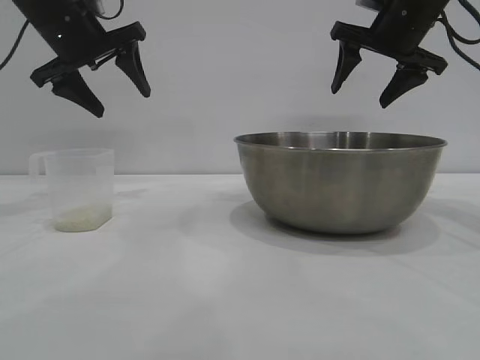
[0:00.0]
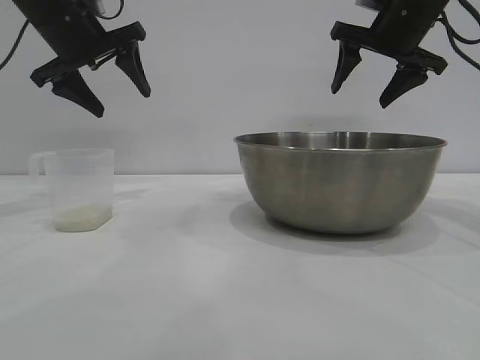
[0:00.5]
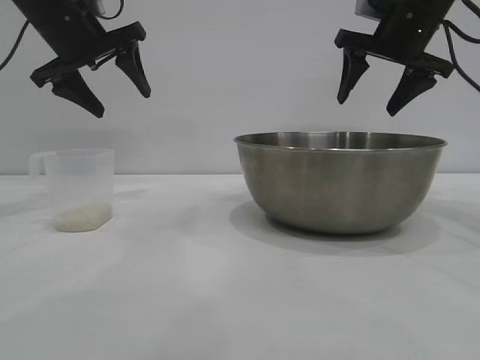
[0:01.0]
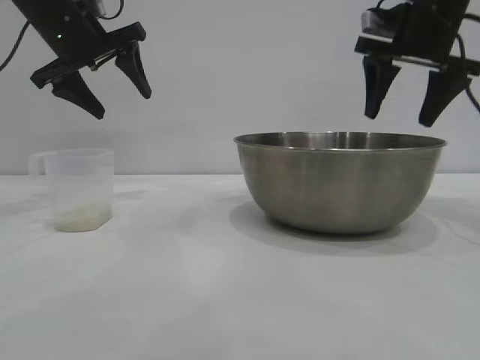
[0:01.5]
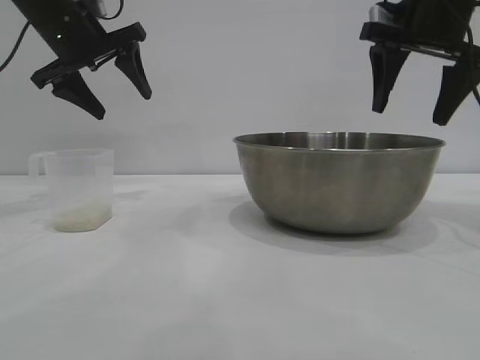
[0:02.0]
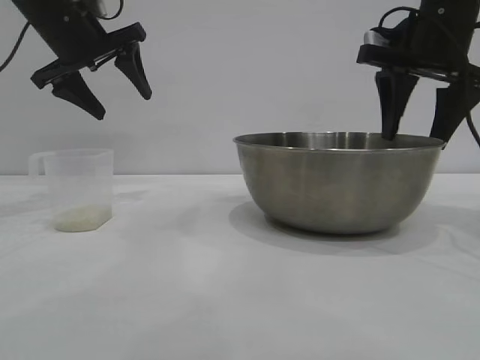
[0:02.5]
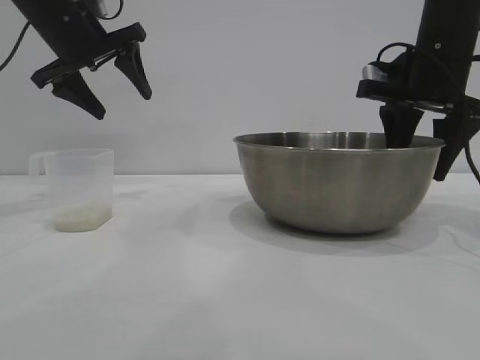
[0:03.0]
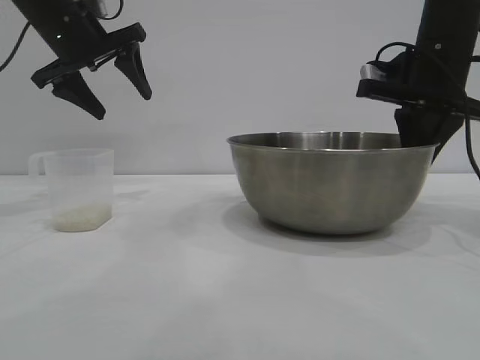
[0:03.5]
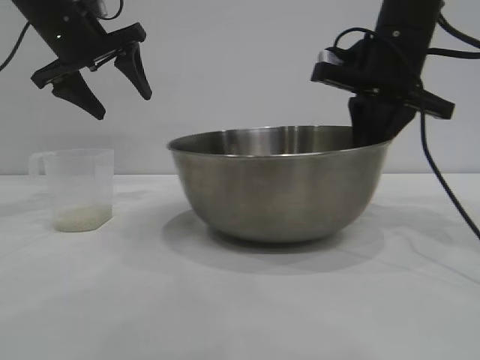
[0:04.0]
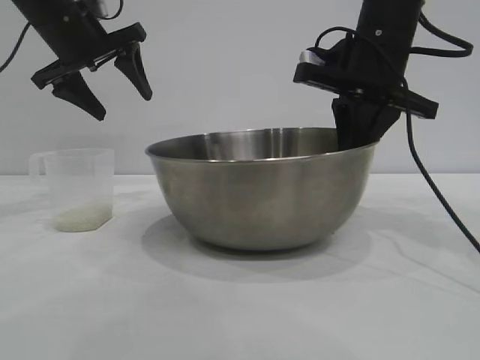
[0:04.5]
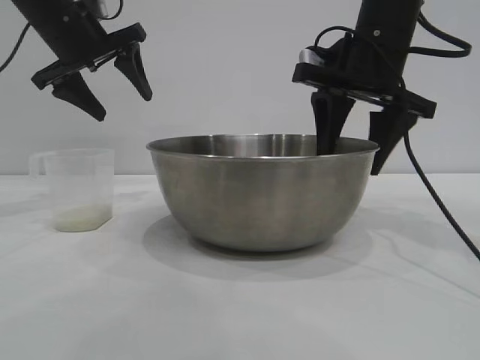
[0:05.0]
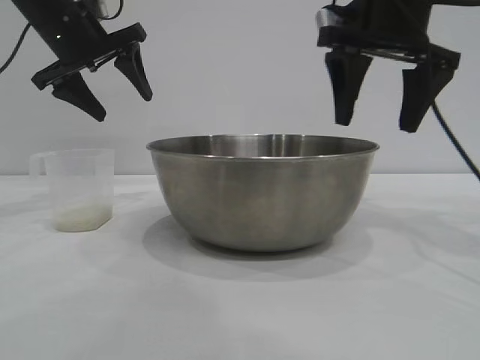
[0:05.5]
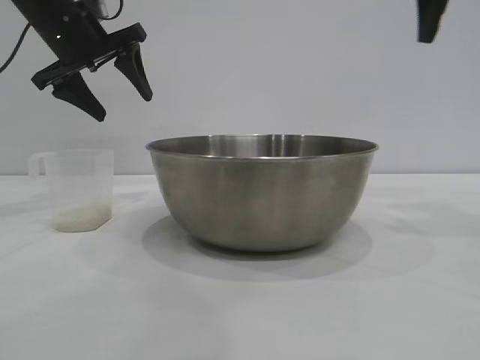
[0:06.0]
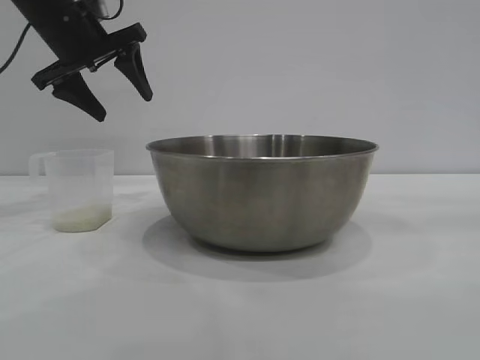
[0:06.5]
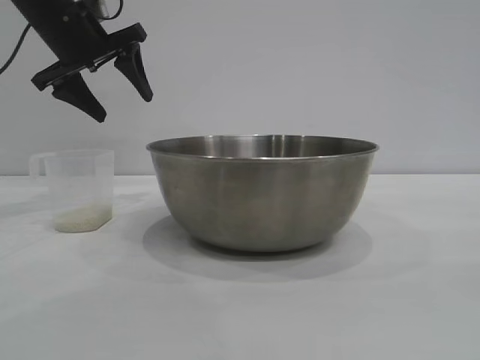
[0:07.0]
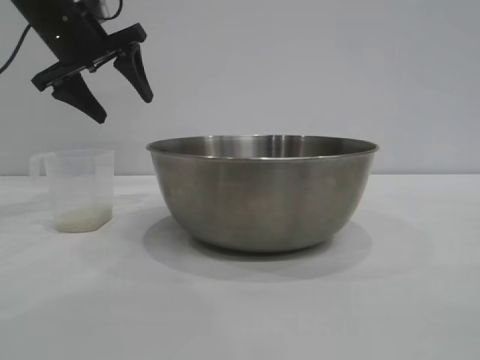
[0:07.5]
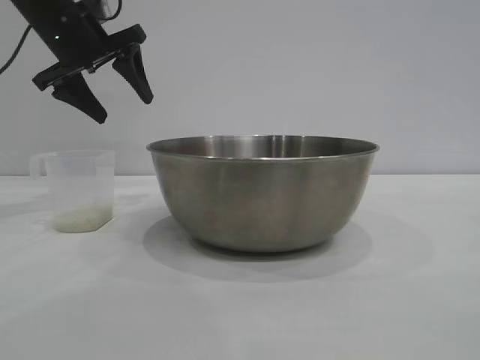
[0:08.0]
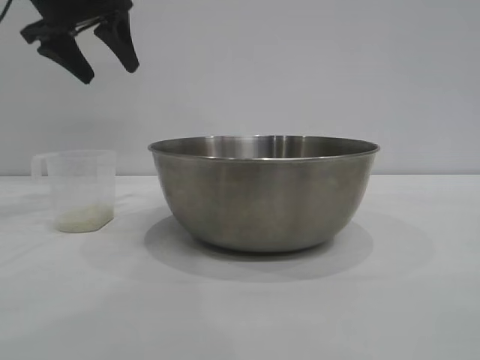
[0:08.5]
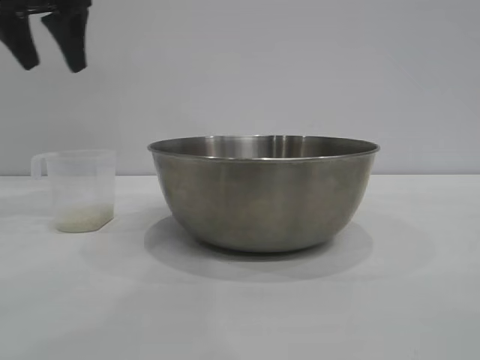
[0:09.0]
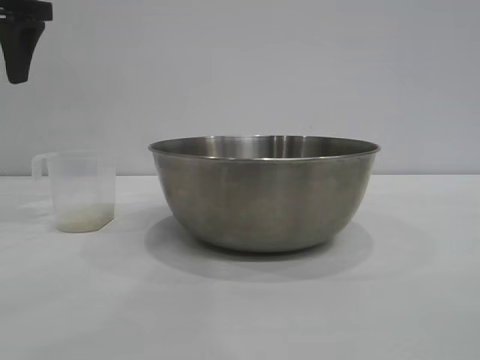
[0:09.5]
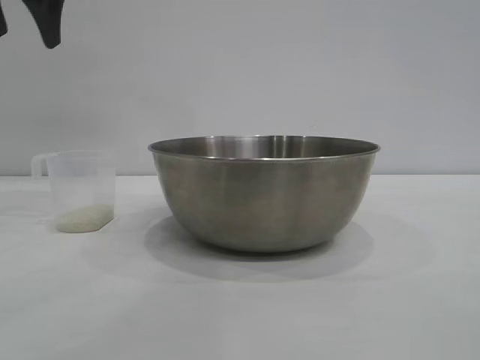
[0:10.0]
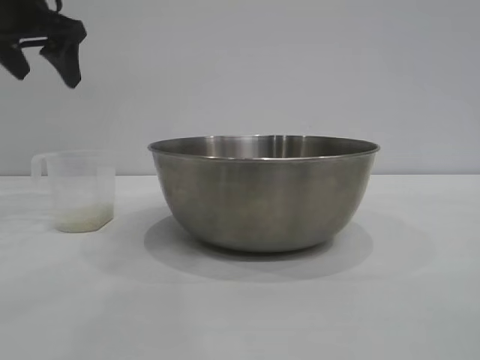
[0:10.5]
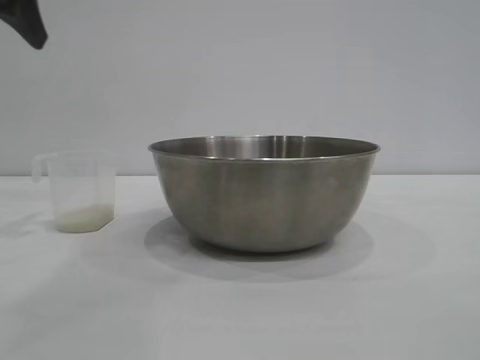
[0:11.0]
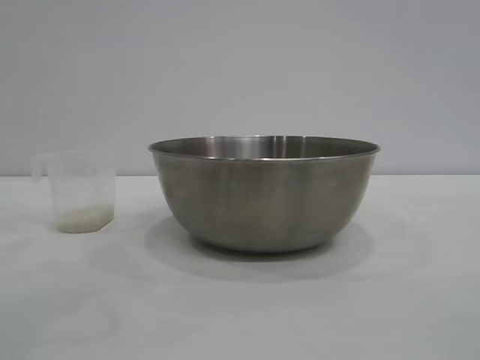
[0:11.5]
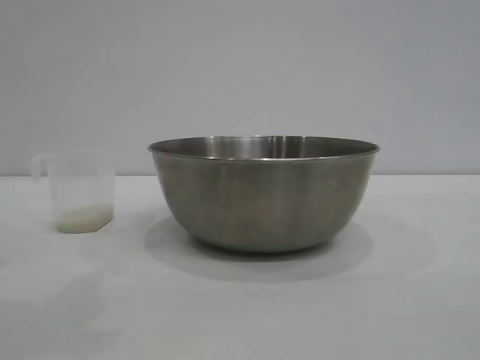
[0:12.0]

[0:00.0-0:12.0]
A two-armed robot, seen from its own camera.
Task of the whole recording: the right gripper grasp the rice container and place it in the center of the table, the left gripper grasp the rice scoop and pour the rice into the rice container.
Step, 0:00.0 to 0:05.0: Move the bowl to the center of view with the right gripper.

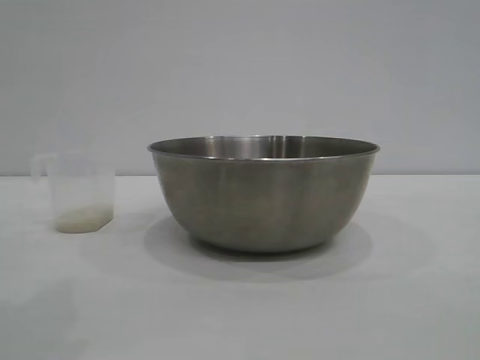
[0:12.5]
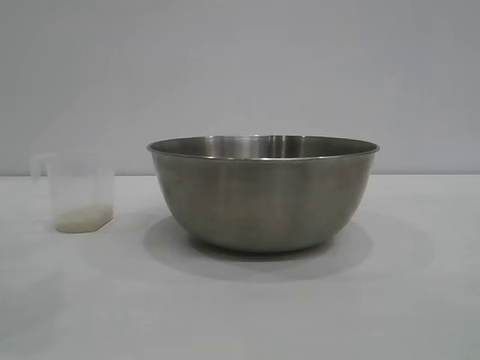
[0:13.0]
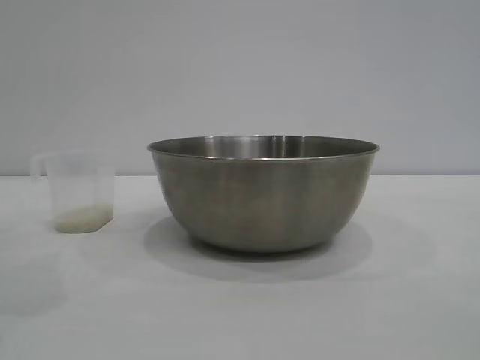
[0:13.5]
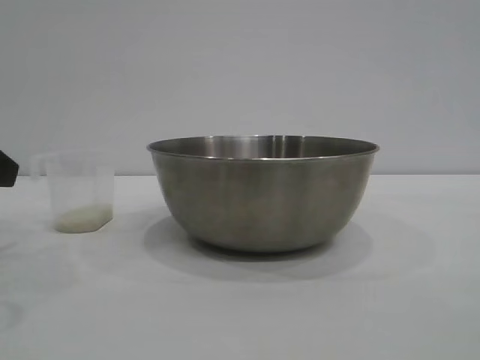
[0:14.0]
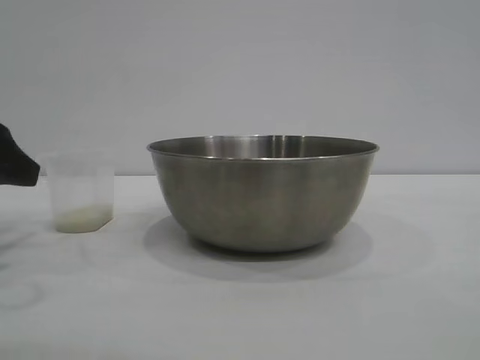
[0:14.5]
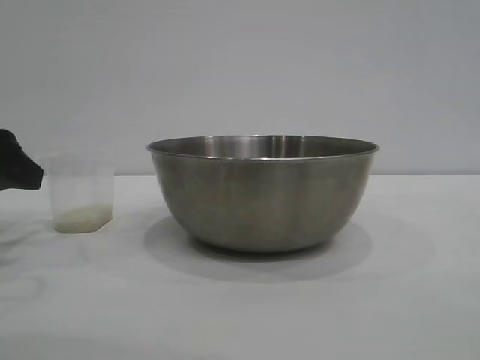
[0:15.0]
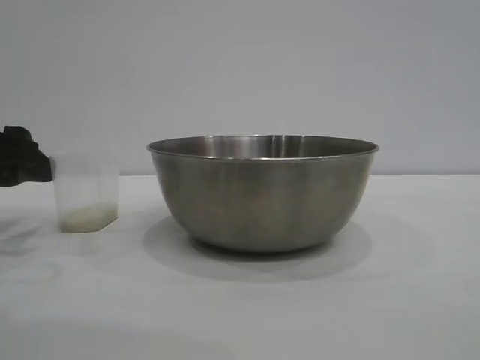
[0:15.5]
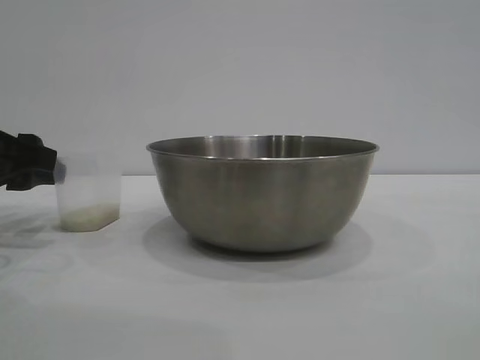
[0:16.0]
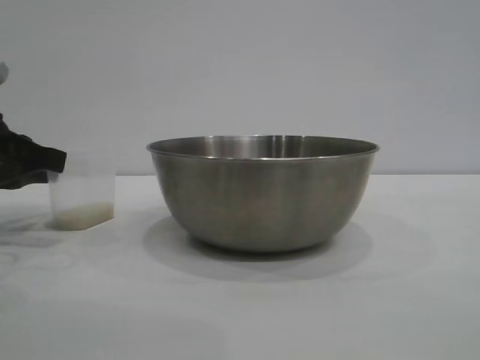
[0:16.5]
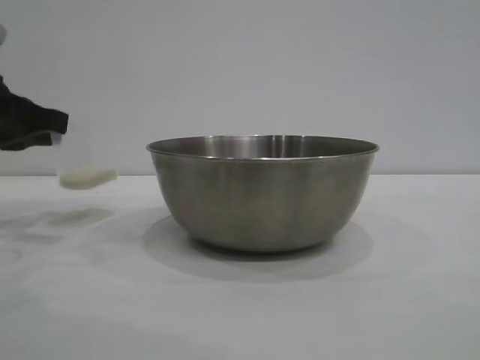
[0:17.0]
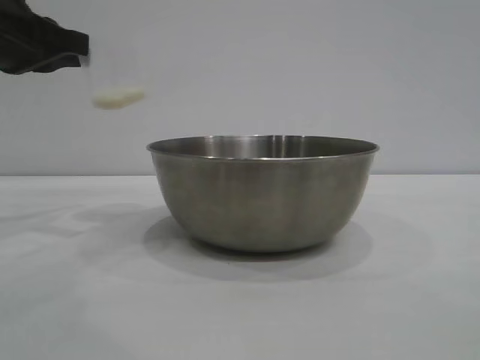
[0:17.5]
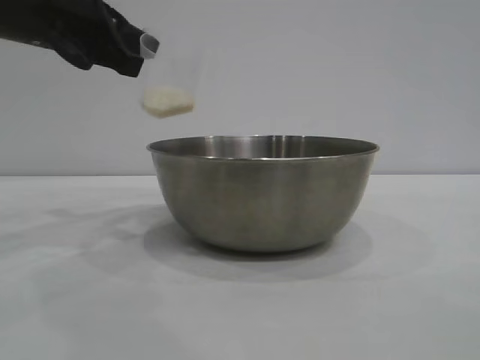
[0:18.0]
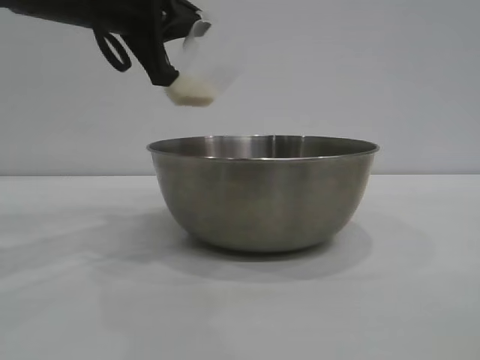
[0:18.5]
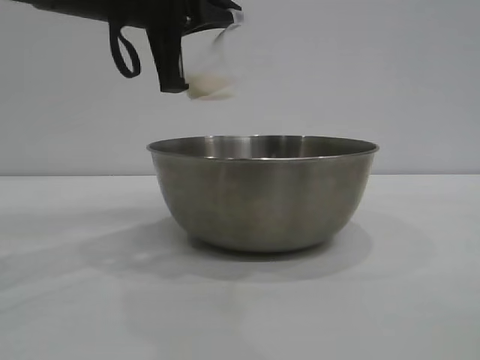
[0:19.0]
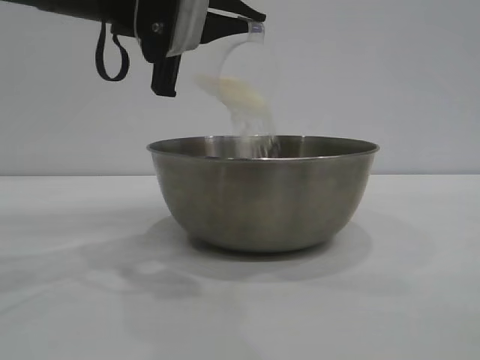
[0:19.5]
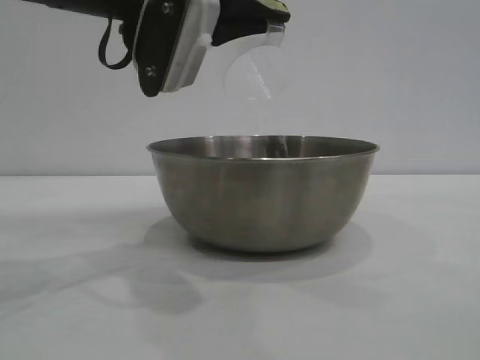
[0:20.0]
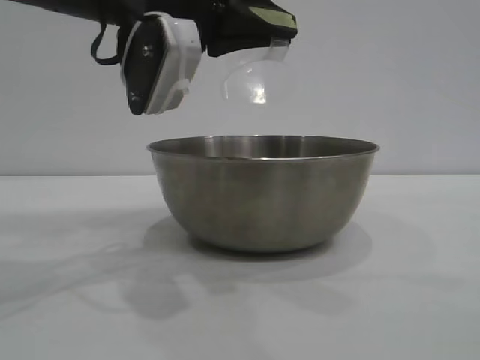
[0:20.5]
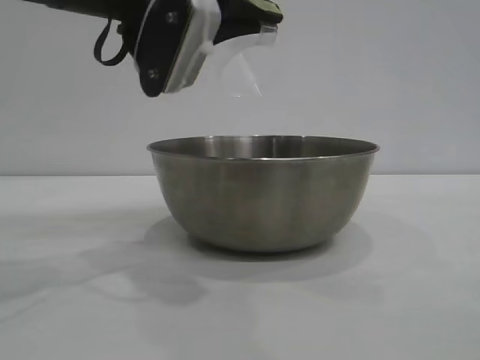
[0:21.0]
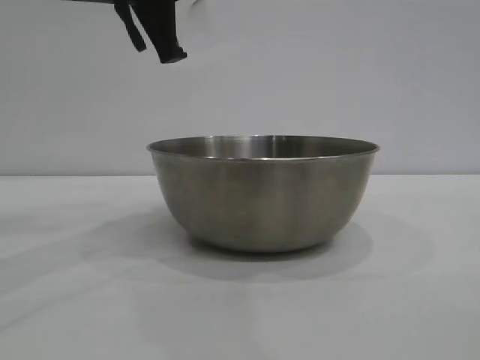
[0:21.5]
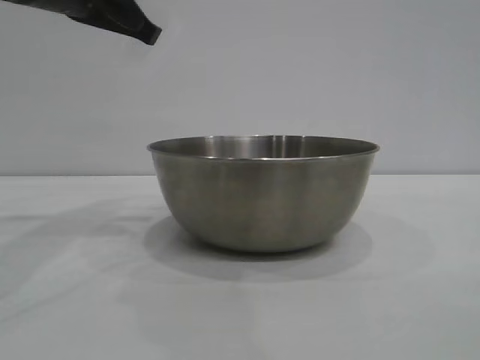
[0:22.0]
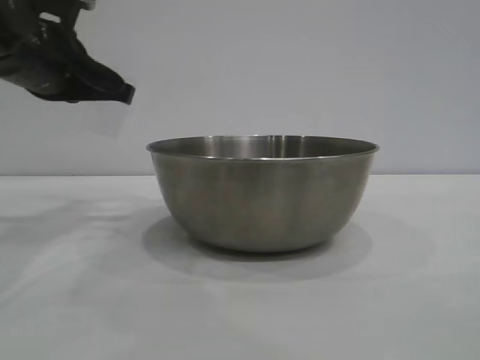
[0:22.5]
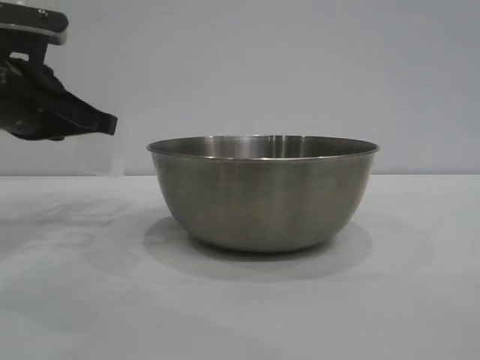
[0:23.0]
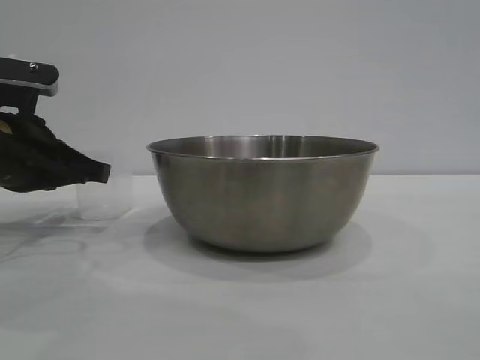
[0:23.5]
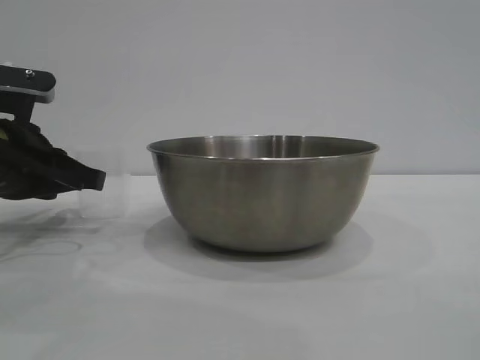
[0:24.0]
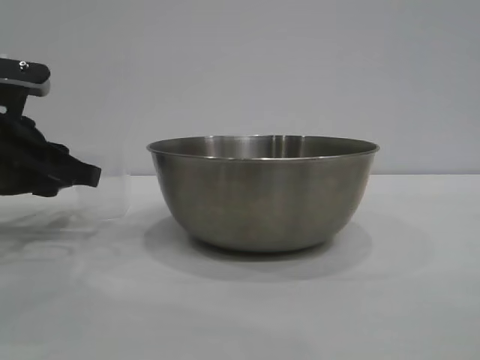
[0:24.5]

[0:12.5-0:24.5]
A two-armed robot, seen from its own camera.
Task of the whole recording: the right gripper grasp the rice container and place it in the center of the table, the left gripper grasp the rice scoop and pour the rice into the rice container.
Step, 0:17.0 to 0:21.0: Pour the rice from the cup into the bowl with the left gripper.
